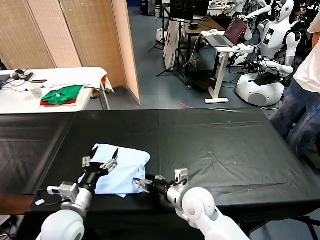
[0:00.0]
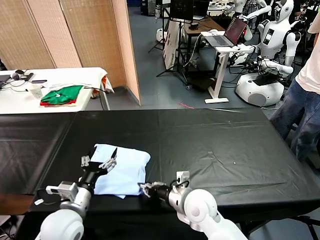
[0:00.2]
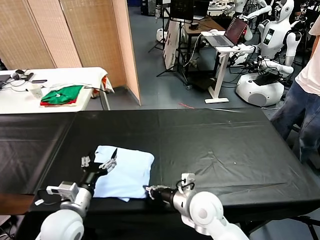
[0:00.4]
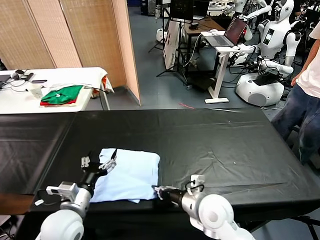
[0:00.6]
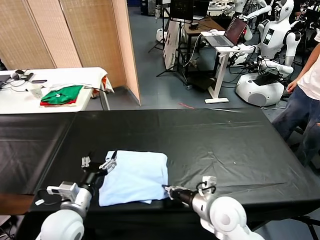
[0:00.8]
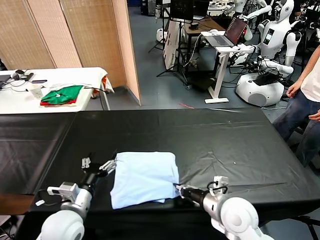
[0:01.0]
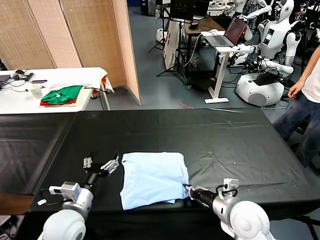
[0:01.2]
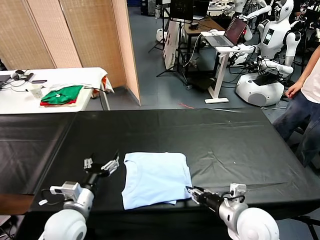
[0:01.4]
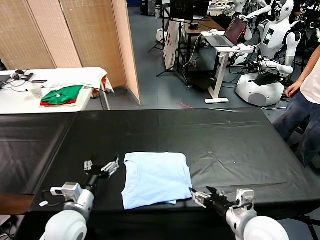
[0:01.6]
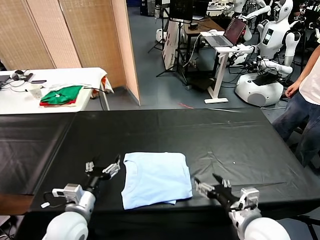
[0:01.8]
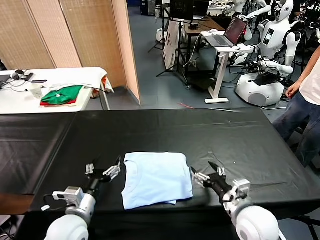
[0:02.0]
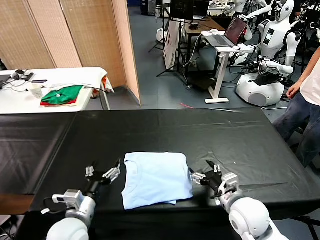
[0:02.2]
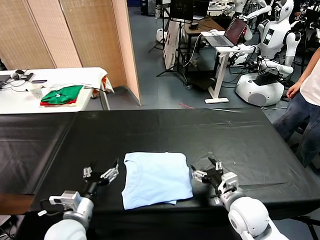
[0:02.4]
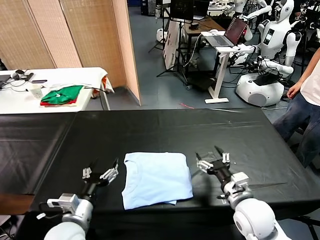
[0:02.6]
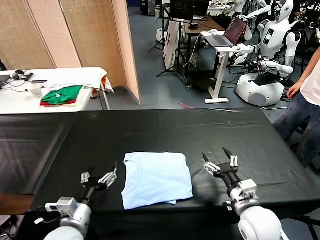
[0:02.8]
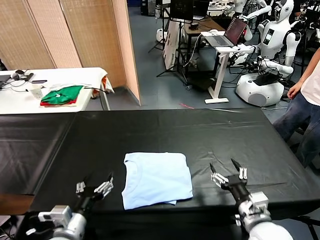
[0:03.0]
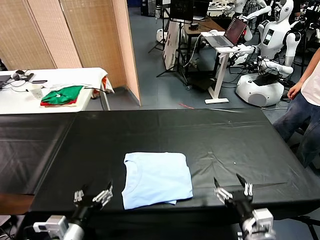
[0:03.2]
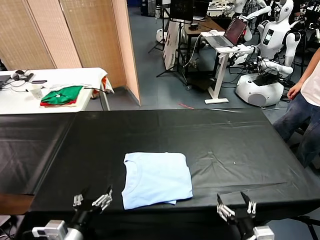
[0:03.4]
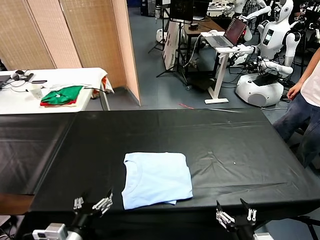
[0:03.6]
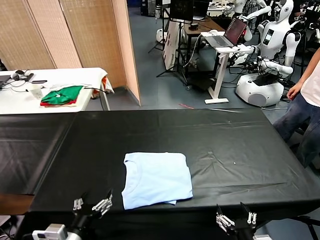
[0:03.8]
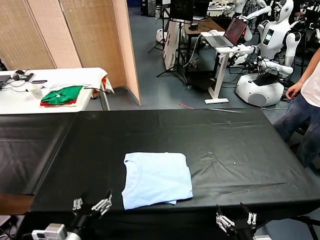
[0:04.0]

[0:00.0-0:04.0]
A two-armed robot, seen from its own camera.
Task of the whole recording: fold and organize the clothes.
Step, 0.0 to 1.4 s: Drag the clothes to the center of the table.
0.0 to 1.4 s: The right gripper heads to the right and backward, covering some 15 cm, and closes its fingers.
1.4 to 2.6 s: The right gripper opens its fingers.
2.6 to 4.0 s: The right gripper shifts some 15 cm backward; the left gripper is displaced backward by some 10 cm.

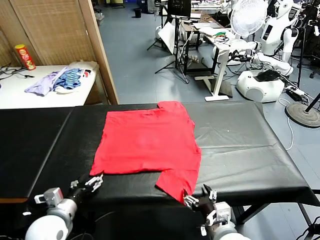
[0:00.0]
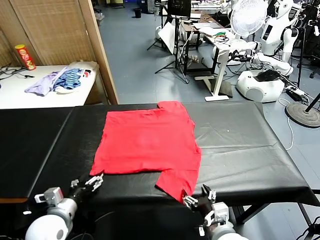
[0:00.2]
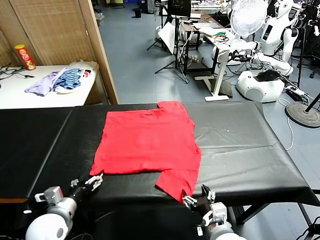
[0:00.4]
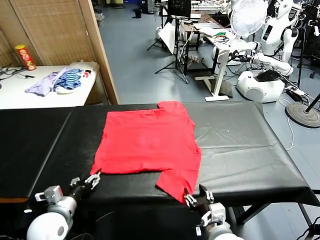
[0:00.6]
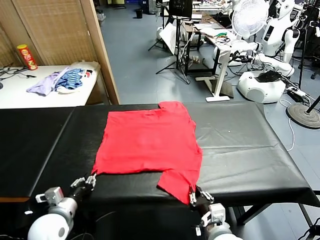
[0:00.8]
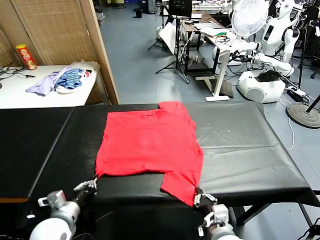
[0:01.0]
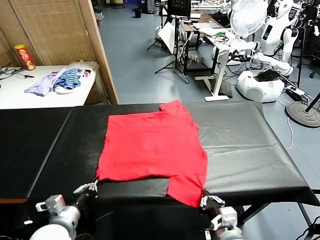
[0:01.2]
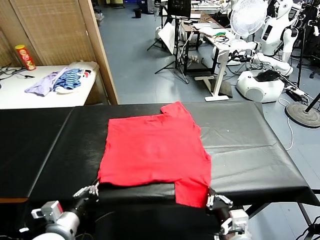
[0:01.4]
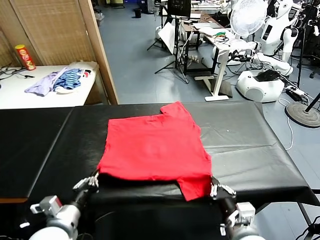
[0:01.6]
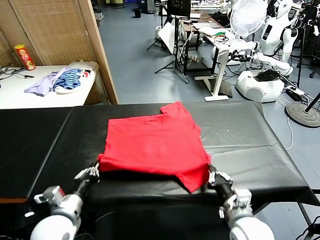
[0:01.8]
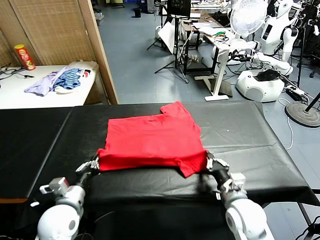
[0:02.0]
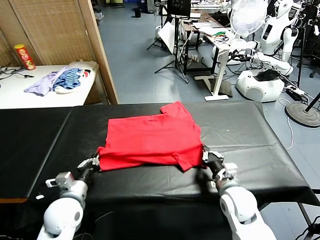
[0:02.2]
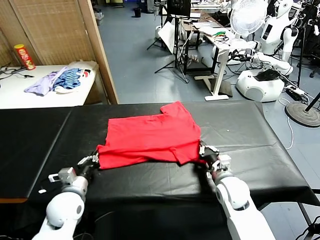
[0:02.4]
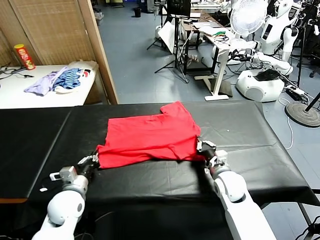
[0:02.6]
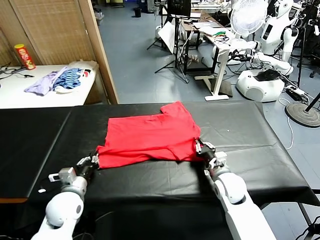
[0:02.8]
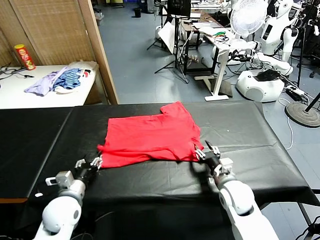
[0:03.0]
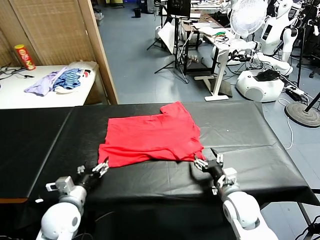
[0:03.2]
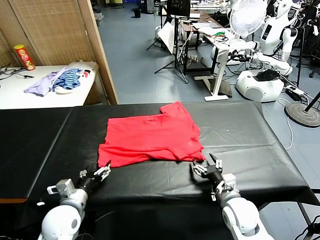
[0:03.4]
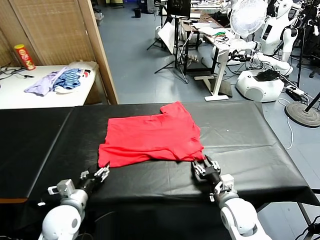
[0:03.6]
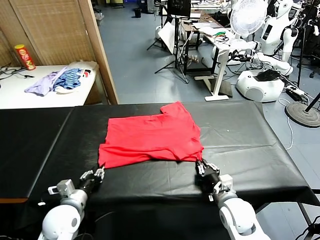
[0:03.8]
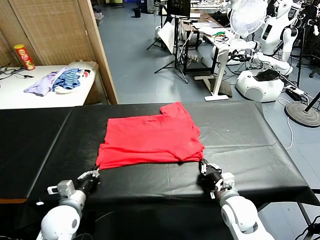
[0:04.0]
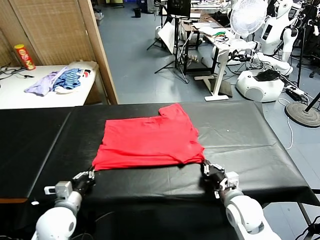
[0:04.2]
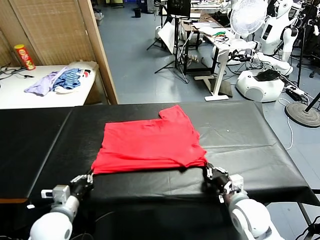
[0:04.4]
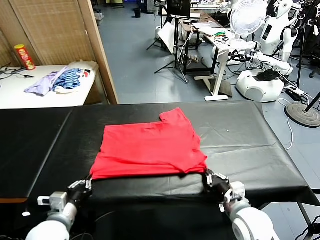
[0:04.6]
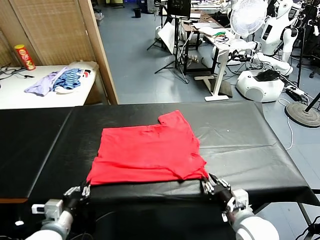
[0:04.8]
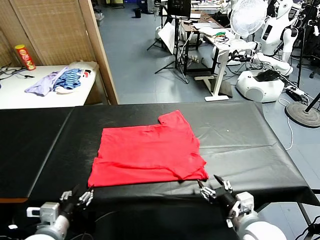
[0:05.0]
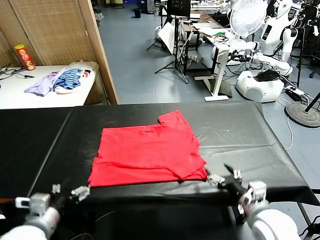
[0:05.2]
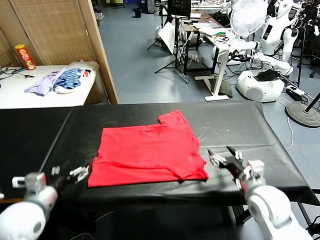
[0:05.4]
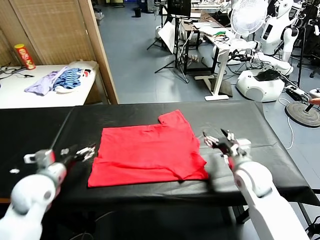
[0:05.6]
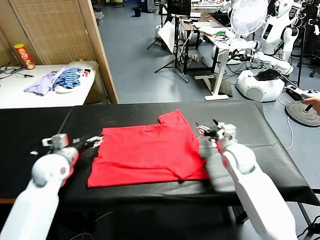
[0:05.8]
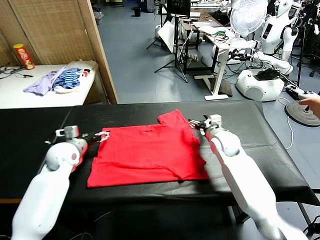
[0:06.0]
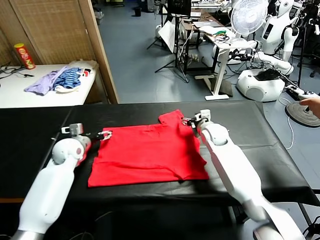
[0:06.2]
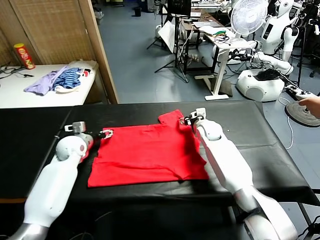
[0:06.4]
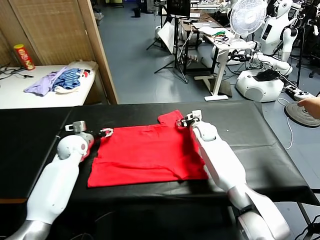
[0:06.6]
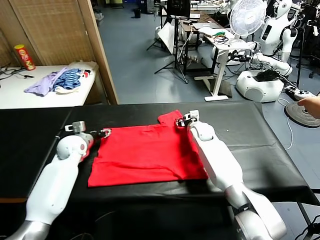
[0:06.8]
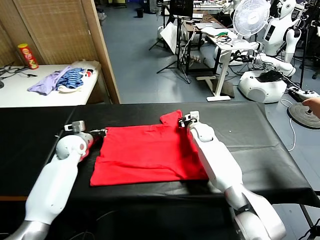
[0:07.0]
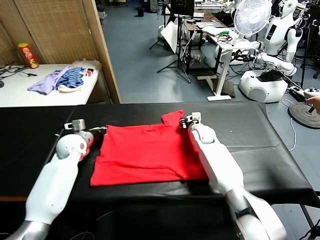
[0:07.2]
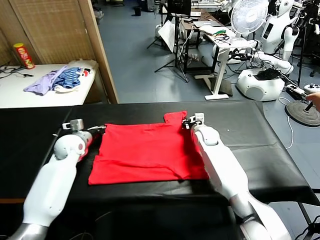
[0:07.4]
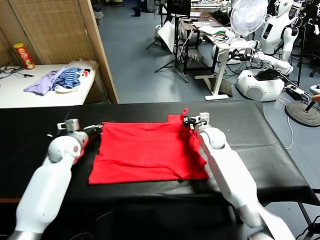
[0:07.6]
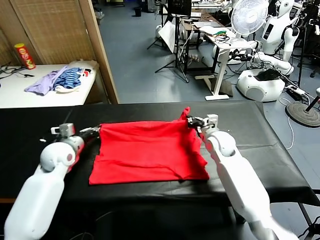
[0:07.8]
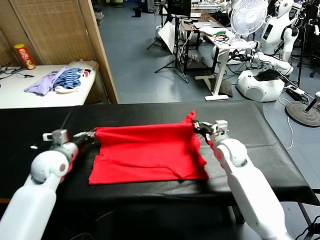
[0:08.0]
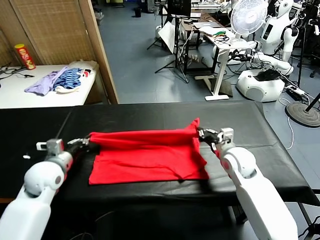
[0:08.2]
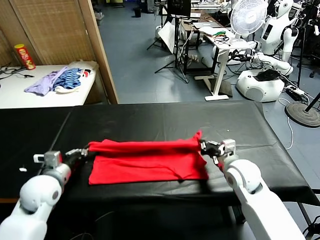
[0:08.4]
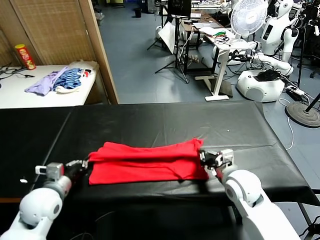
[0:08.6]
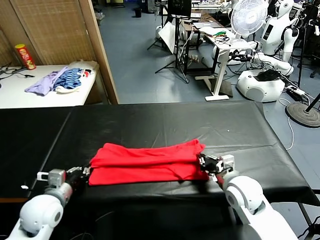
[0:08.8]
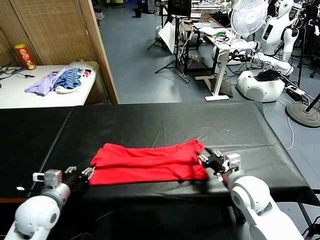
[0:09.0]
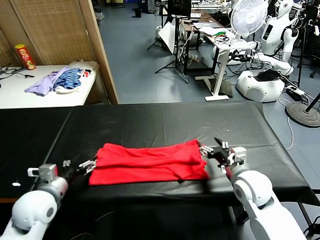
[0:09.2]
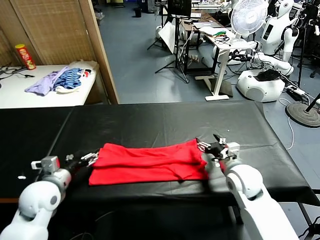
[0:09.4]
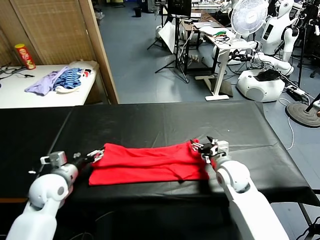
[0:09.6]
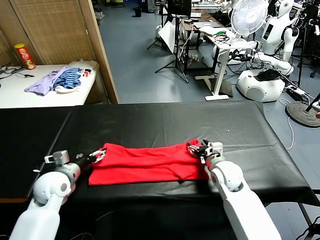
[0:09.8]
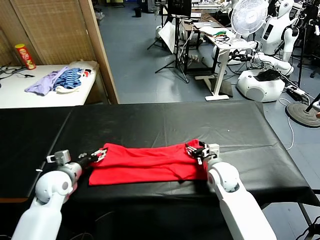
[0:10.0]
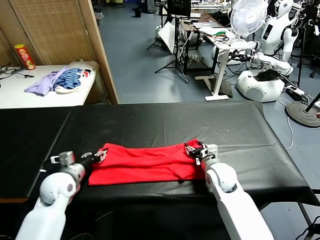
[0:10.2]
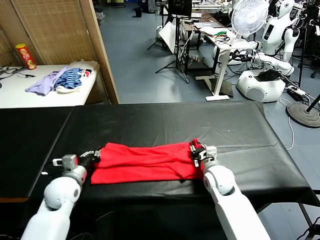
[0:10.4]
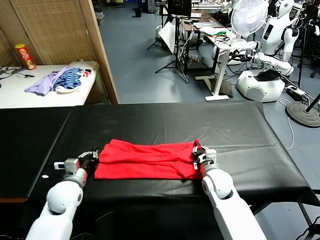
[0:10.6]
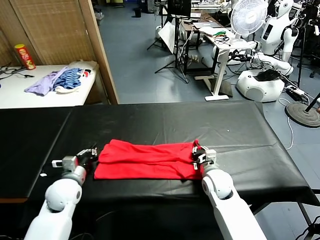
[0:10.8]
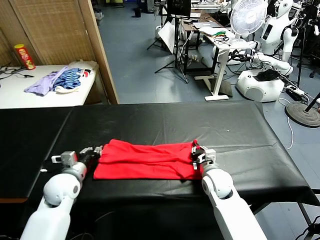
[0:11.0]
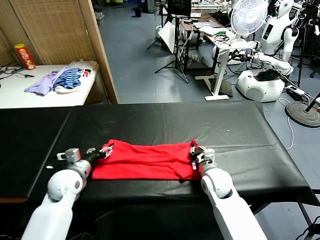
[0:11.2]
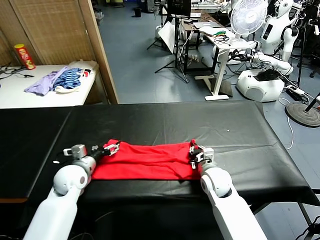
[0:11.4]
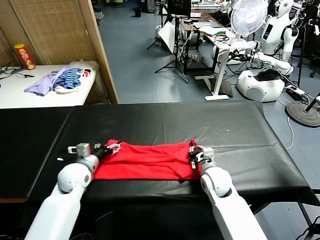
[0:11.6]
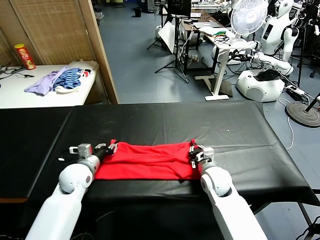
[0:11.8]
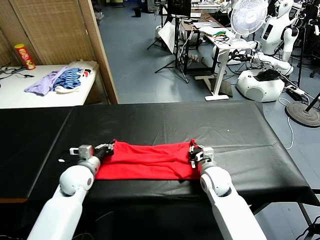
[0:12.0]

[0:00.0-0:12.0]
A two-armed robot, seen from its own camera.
Task of the whole recording: fold and organize the clothes.
Step, 0.0 to 0.8 s: use both grippers simultaneously to clamp the lower edge of the clothing fabric.
Step, 1.0 to 2.8 s: use both grippers to drag the lower edge of the fabric forward and fold it over the upper edge.
Step, 3.0 to 4.8 s: Drag the clothes downward with both gripper.
Step, 5.0 to 7.0 s: use both grippers simultaneously to clamp the upper edge of the clothing fabric.
Step, 7.2 to 8.8 s: use both grippers to drag the upper edge of the fabric backward and fold it over the lower edge.
1.6 to 3.0 s: The two grippers go about 5 cm forward. The left gripper opens its fingers. Meanwhile the right gripper opens.
3.0 to 4.4 s: The right gripper is displaced backward by approximately 5 cm, and closes its fingers. Meanwhile the left gripper closes up.
4.4 to 6.0 s: Both grippers travel together forward, approximately 25 cm. The right gripper opens. The left gripper opens.
6.0 to 7.6 s: The right gripper shifts some 5 cm backward, and closes up, while the left gripper closes up.
7.6 to 9.0 s: Both grippers travel together backward, about 20 cm. The right gripper opens its fingers; the left gripper opens up.
9.0 to 10.4 s: The left gripper shifts about 10 cm forward and downward, and closes up. Meanwhile the right gripper travels downward, to the left and forward by about 15 cm, and closes its fingers.
10.4 to 12.0 s: The left gripper moves about 5 cm, and opens, then closes again.

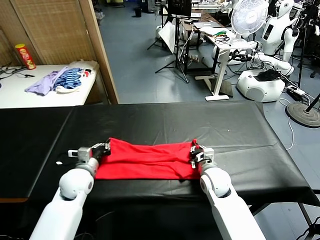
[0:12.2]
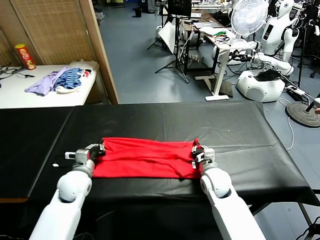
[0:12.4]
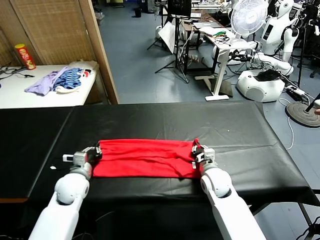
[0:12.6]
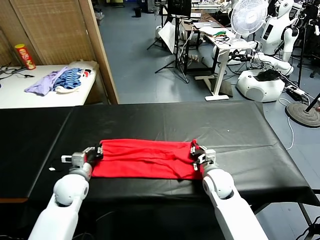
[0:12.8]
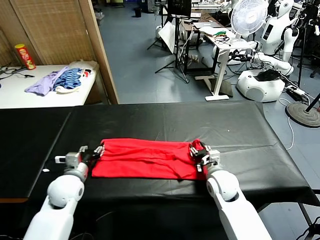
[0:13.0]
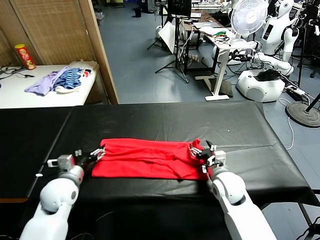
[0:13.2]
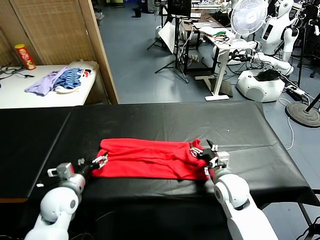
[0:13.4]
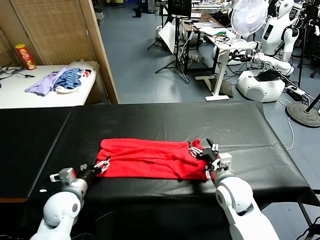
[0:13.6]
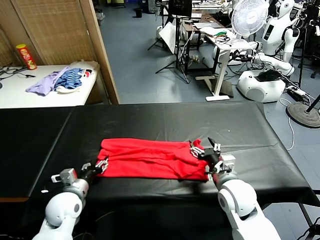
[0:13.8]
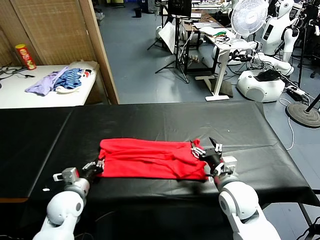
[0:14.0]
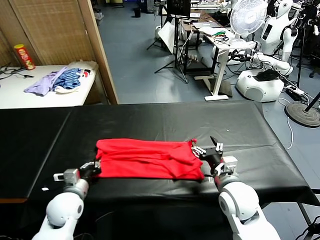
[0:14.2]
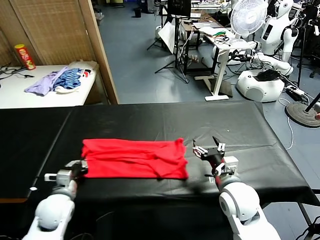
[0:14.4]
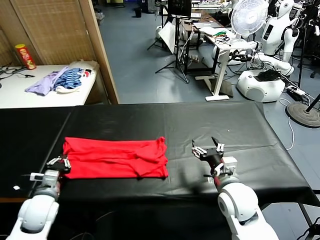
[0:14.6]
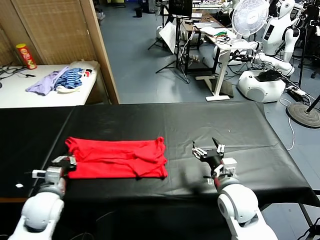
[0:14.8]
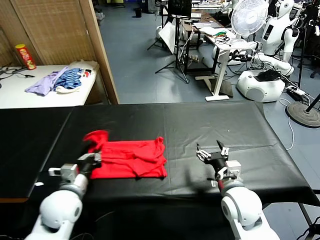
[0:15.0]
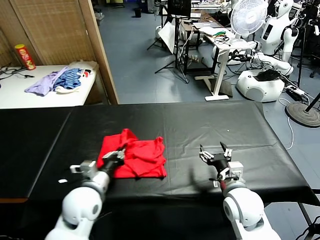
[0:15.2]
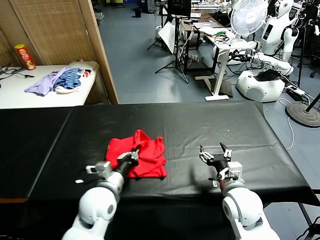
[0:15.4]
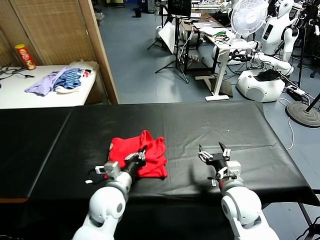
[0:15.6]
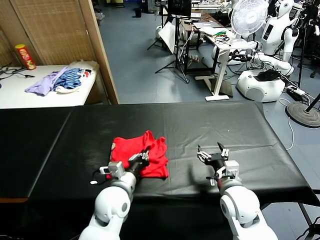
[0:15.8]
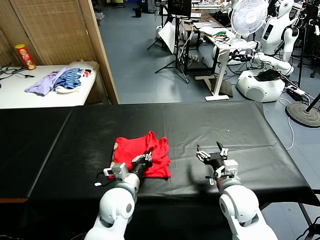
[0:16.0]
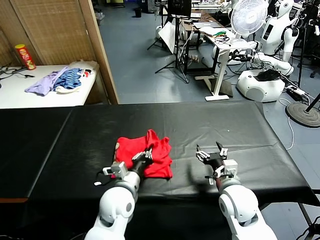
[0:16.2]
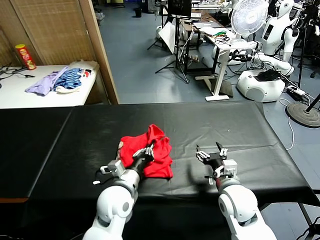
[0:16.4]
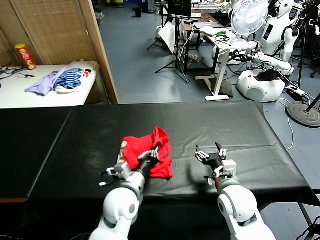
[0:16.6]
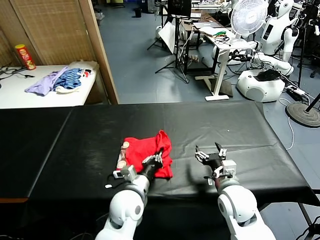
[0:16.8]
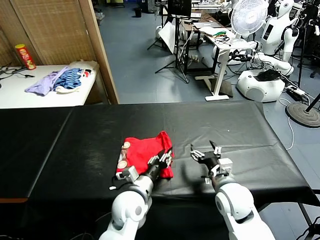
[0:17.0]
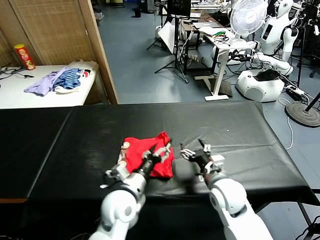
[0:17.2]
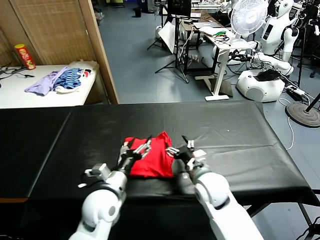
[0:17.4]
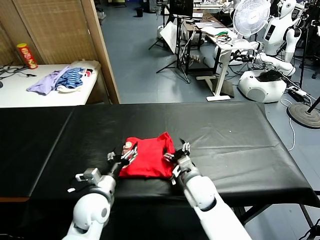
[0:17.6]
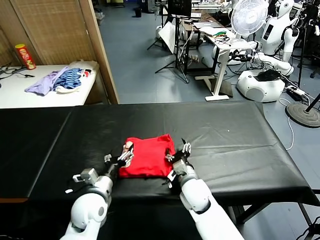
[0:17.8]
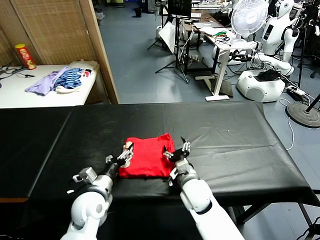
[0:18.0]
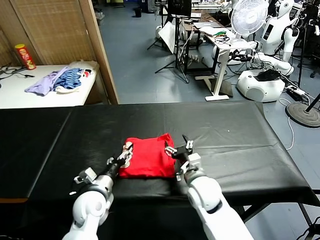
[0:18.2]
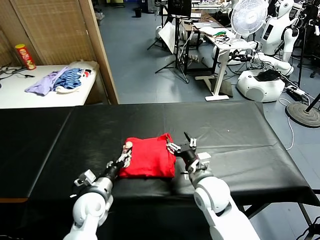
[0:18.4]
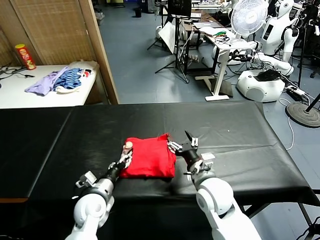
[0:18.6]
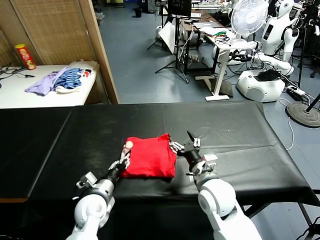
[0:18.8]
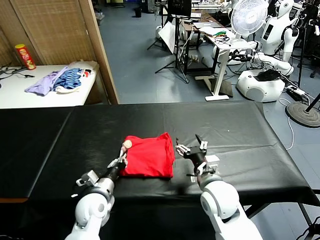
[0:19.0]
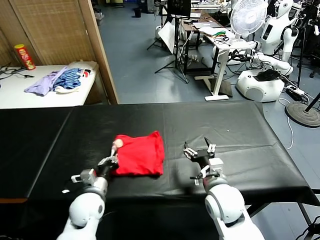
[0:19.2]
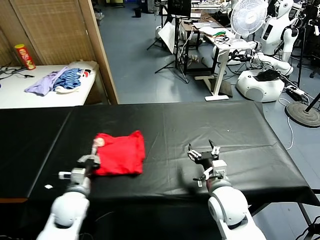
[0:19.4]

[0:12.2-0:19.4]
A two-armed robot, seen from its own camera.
Task of the whole recording: fold and organize the clothes.
Step, 14.4 to 17.0 s: use the left gripper to drag the left edge of the fabric to the left and folds it over the right edge.
12.2 to 13.6 s: The right gripper shifts about 10 cm backward and upward, and opens its fingers. Meanwhile the left gripper is displaced backward by roughly 5 cm, and opens its fingers.
13.6 to 15.0 s: The left gripper moves upward, about 5 cm, and closes up.
15.0 to 16.6 s: The left gripper travels to the right by about 15 cm.
16.6 to 18.0 s: The two grippers go roughly 10 cm to the left. The left gripper opens.
18.0 to 19.4 s: The right gripper heads to the right, upward and backward, covering roughly 10 cm; the left gripper moves to the left, roughly 5 cm, and closes.
